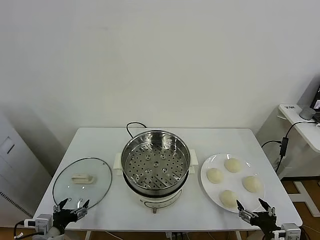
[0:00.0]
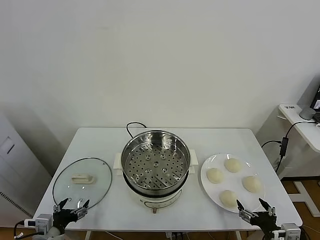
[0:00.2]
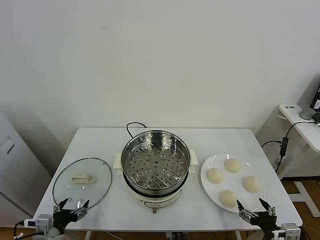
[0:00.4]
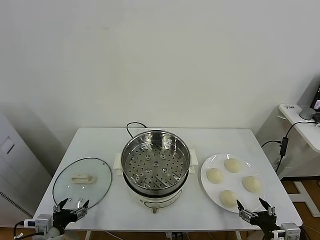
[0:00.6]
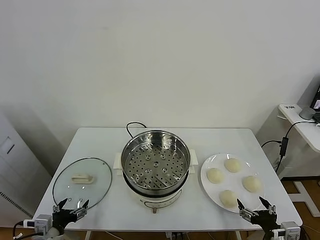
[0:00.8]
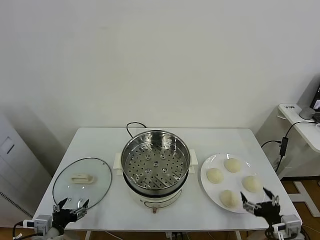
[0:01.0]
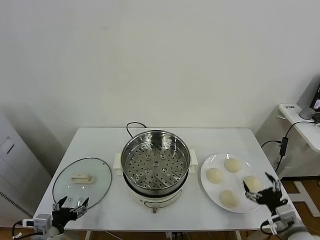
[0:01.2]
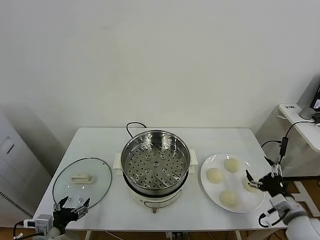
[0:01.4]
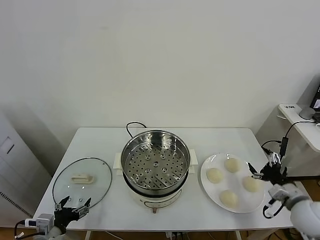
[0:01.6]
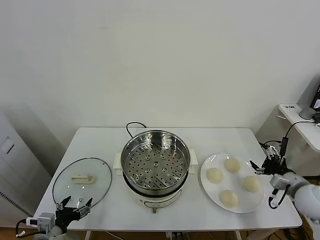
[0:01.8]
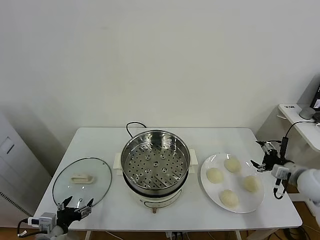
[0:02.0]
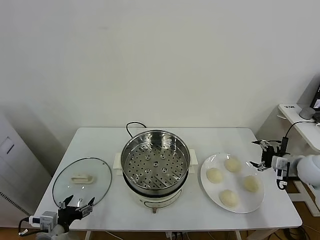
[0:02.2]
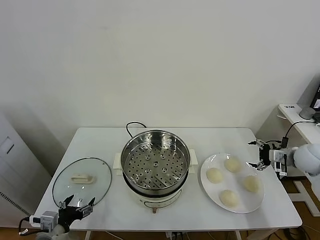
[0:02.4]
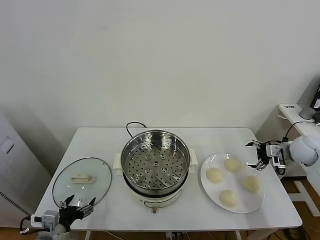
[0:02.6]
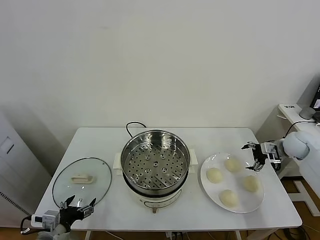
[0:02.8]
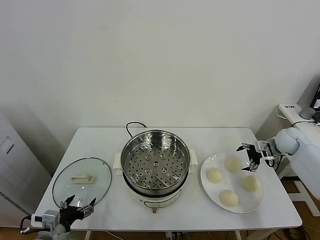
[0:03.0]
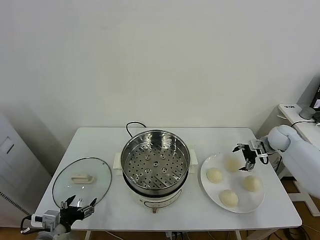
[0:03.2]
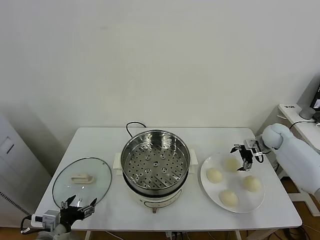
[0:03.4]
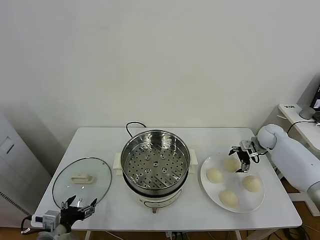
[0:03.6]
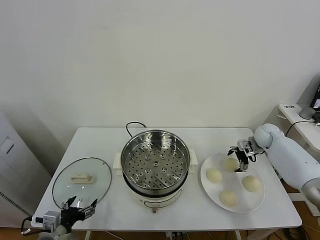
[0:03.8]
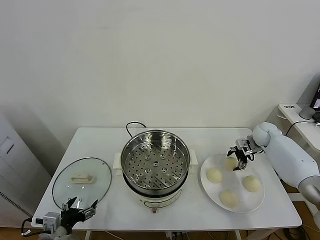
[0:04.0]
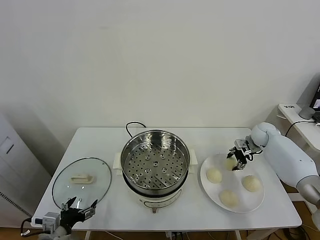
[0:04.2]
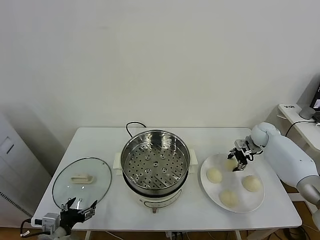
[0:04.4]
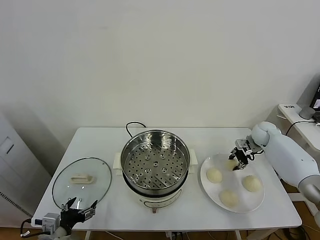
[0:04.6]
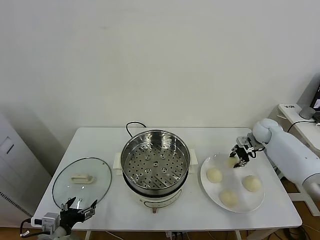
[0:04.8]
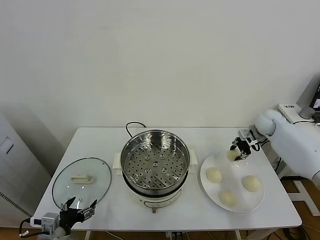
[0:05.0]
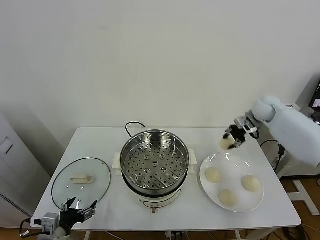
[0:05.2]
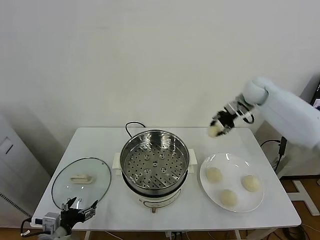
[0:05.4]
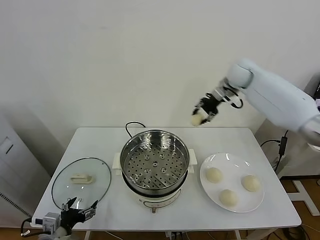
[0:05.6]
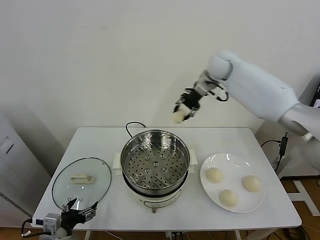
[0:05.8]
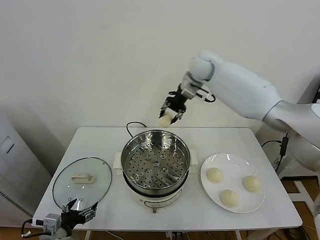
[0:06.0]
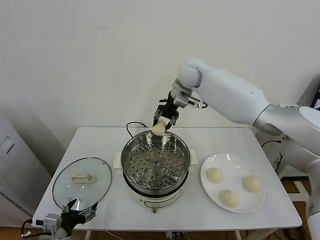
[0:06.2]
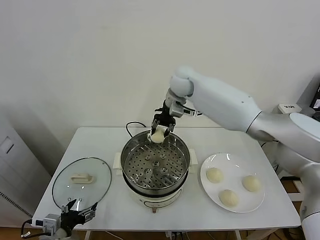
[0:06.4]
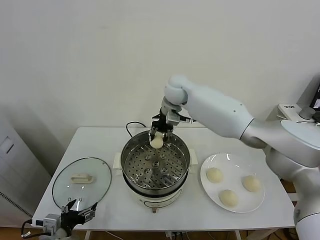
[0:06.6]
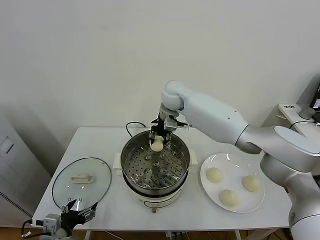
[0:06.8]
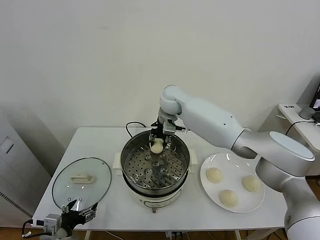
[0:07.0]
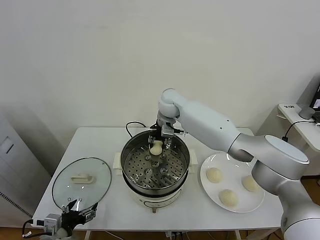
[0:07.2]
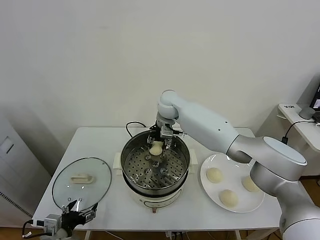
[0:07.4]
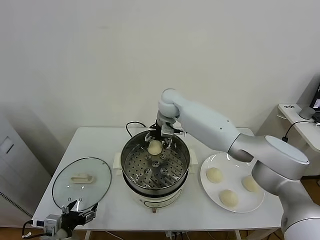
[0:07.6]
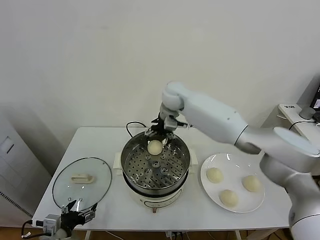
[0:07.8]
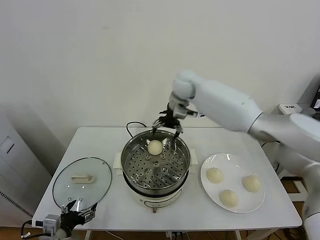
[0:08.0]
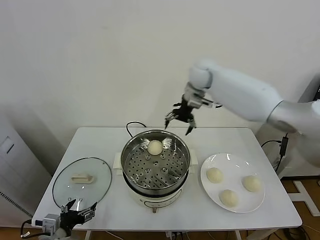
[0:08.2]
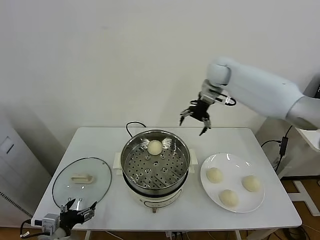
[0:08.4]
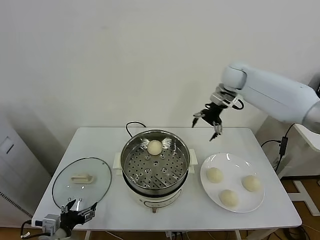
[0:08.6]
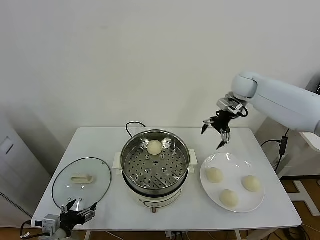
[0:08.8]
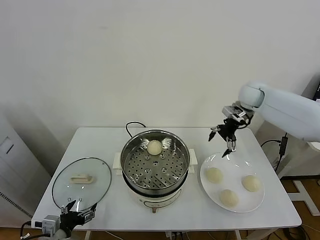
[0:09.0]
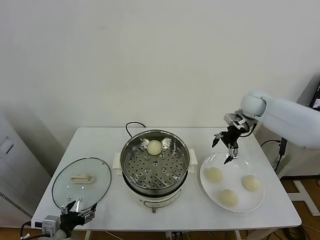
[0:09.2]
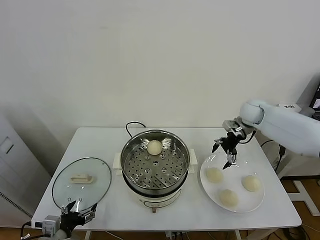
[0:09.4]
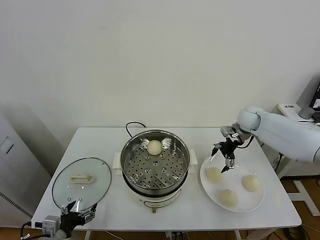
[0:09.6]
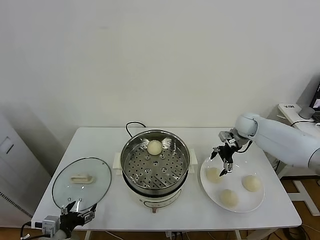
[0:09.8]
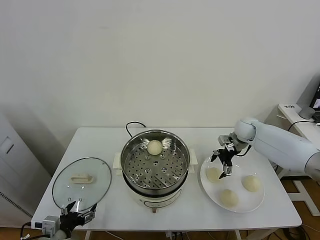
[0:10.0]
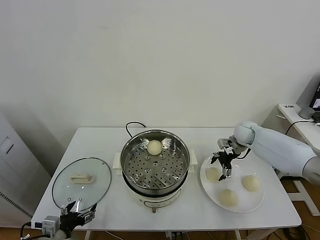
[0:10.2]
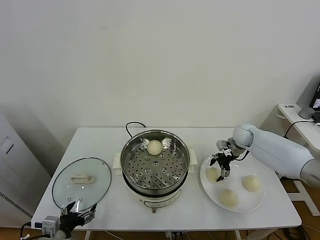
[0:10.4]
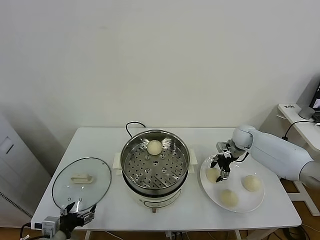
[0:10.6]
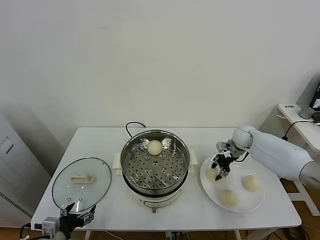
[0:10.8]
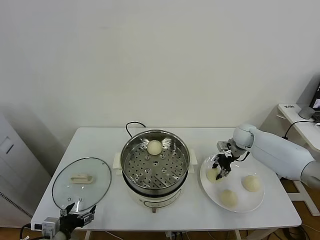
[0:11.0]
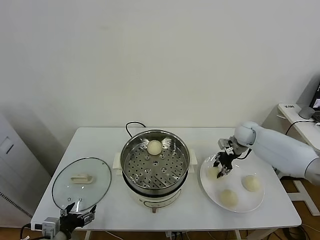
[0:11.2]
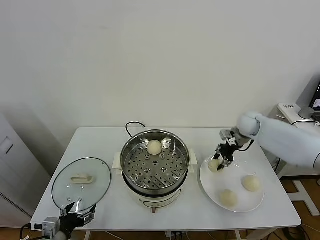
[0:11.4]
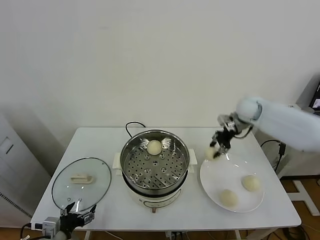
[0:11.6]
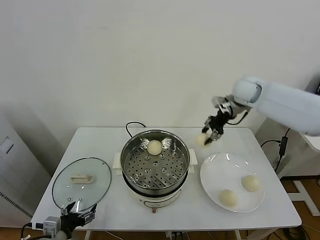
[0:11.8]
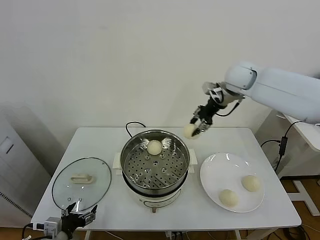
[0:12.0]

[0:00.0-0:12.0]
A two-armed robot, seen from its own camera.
Task of the whole recording: take steamed baozi put them in steamer.
Step, 0:00.0 to 0:04.2: Grasp the baozi in the plate with right gripper.
Step, 0:04.4 to 0:07.8: Place the baozi on the steamer with right gripper.
Step, 0:08.0 to 0:10.6: Grasp the baozi in the plate with right gripper.
0:01.6 to 0:03.0: The right gripper travels forward by some 25 cm.
0:03.0 to 0:04.4: The right gripper travels forward by some 5 cm, and closes its fingers.
0:04.4 to 0:06.0: The right gripper goes about 40 cm to the left and upward.
0:06.0 to 0:07.6: The right gripper moves downward and to the left, approximately 10 cm, and opens its fingers.
0:07.6 to 0:09.0: The right gripper travels to the right by approximately 30 cm.
0:09.0 to 0:10.4: The right gripper shifts about 15 cm downward.
0:10.4 to 0:12.0: The right gripper goes about 30 cm upward and to the left, and closes.

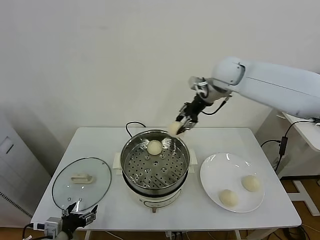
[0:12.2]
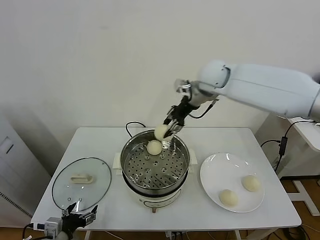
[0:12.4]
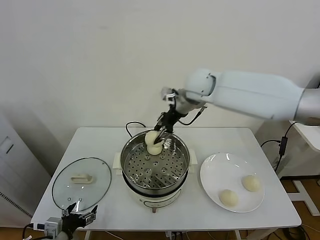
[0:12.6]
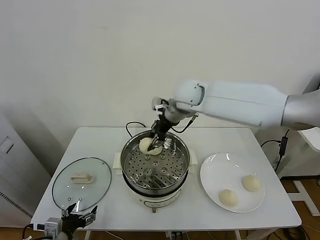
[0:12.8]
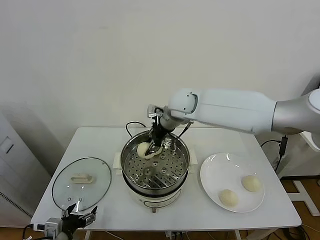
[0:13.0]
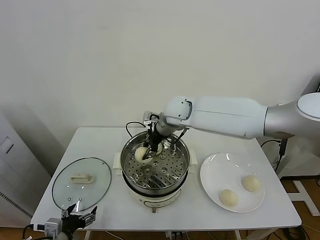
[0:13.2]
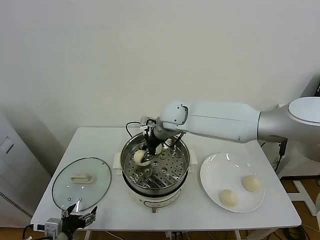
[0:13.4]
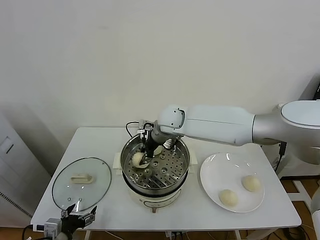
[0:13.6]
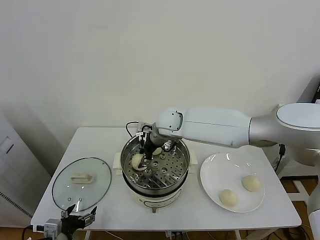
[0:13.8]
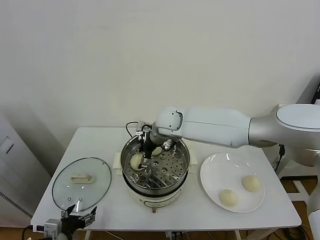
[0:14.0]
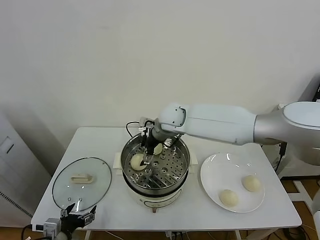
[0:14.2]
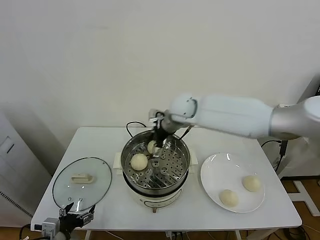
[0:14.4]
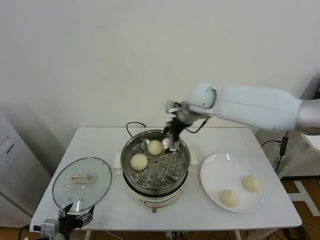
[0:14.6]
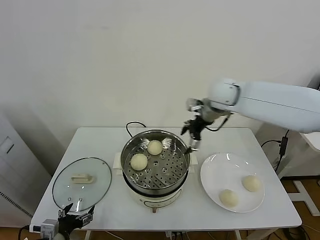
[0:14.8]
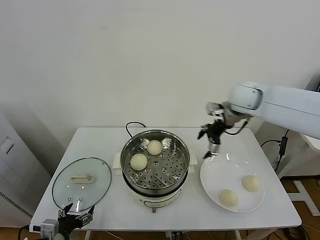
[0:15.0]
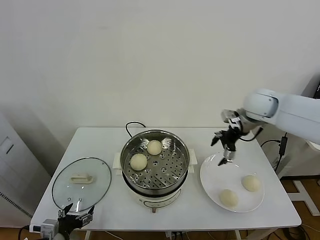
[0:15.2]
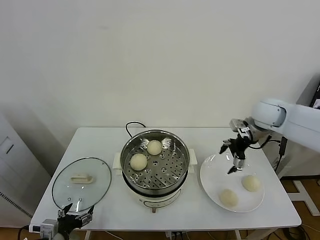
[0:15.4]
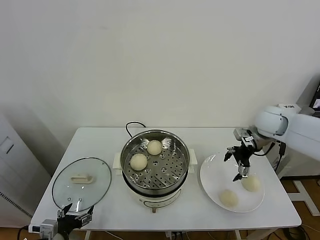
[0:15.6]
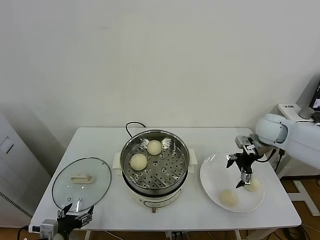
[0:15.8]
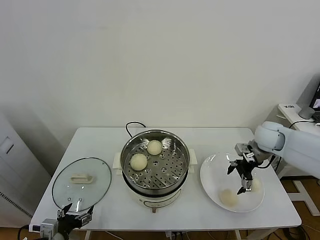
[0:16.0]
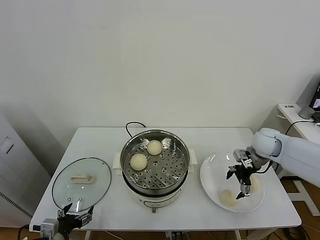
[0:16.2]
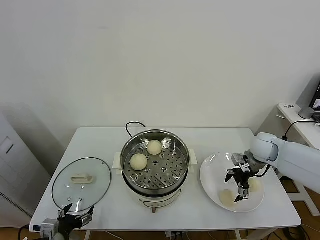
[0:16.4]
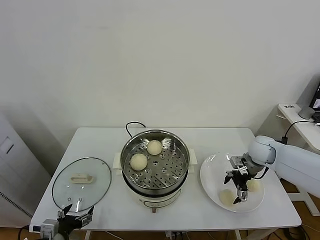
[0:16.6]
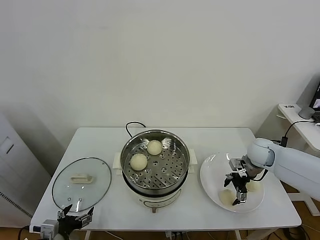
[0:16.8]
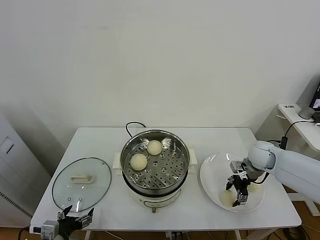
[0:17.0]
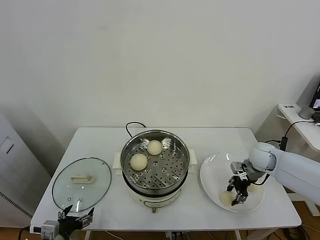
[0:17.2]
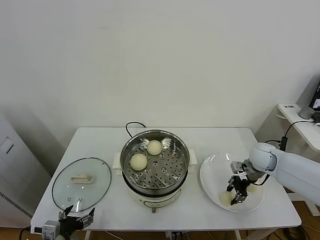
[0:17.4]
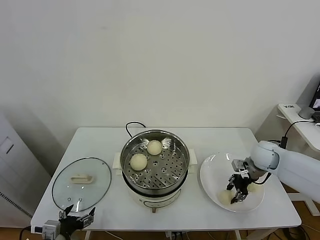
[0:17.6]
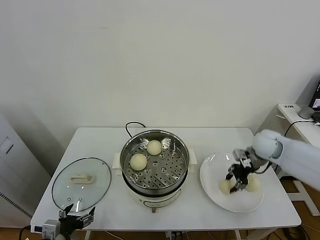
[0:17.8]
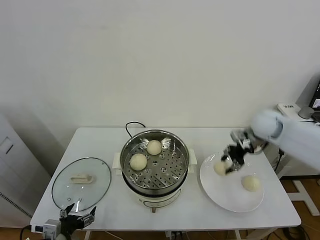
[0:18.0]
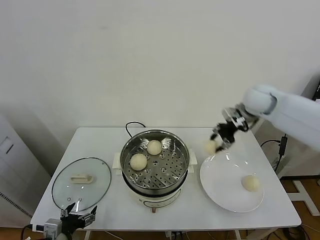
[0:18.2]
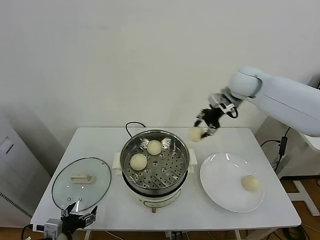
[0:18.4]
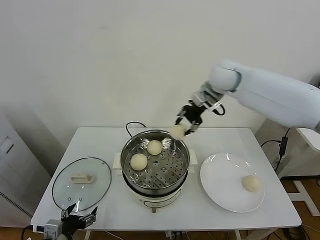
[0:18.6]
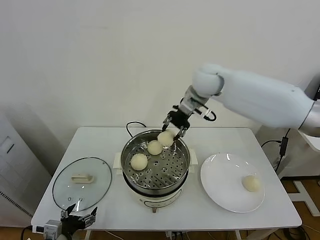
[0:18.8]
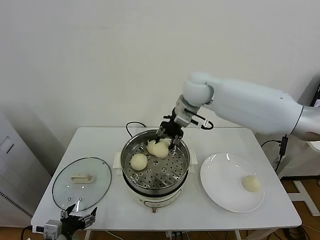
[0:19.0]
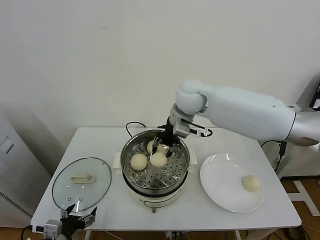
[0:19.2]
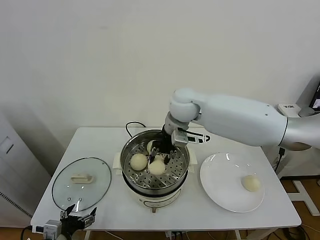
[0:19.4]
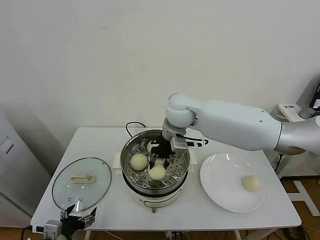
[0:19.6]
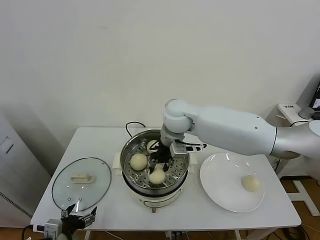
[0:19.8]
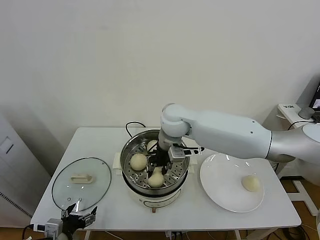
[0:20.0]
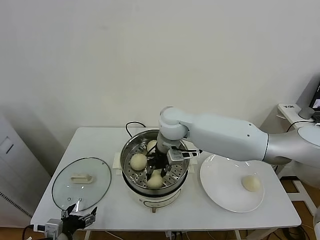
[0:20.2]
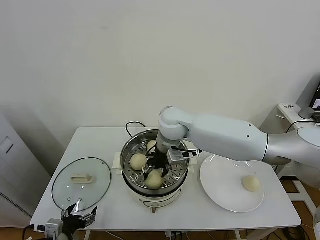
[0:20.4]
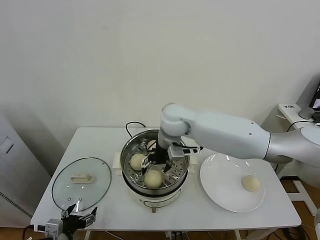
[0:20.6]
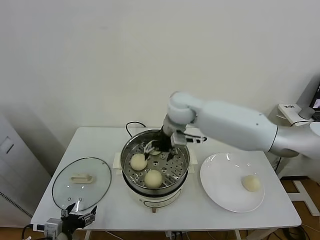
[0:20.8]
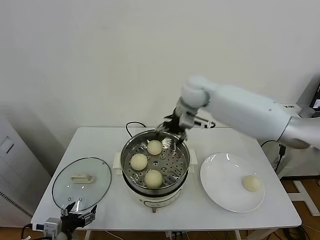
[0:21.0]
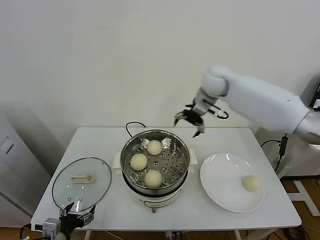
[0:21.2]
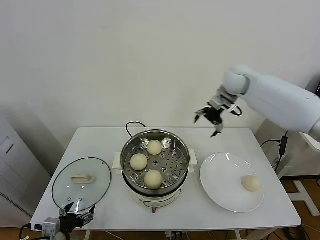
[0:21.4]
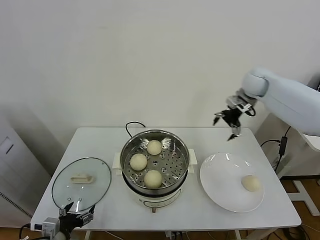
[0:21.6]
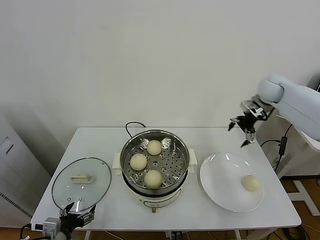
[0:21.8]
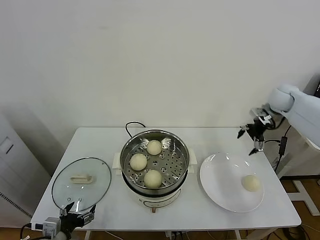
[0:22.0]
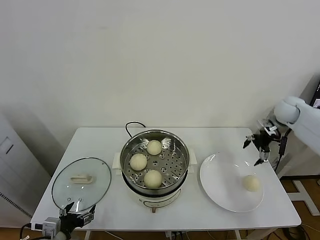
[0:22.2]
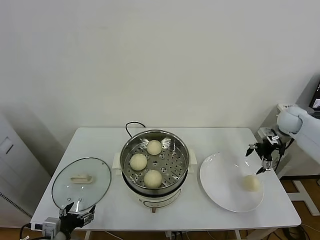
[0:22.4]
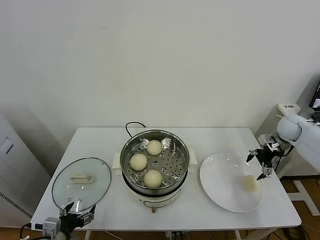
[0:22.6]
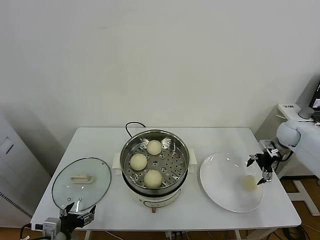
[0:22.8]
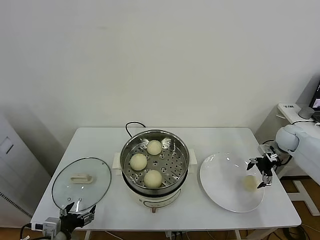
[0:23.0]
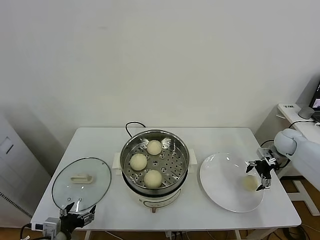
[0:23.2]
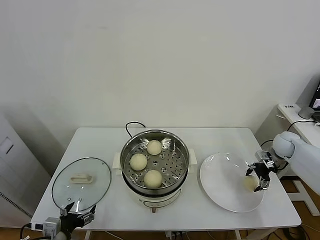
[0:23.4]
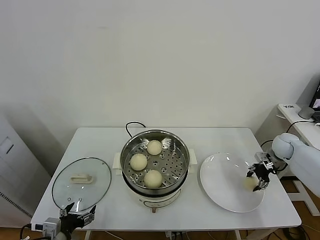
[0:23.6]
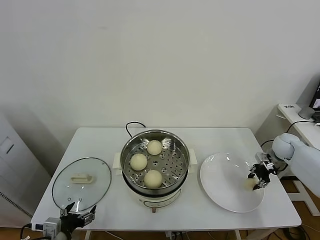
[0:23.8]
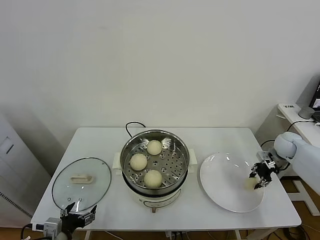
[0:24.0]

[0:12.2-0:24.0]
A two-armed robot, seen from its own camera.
Task of the whole recording: take steamed baozi put them in steamer.
Step, 0:12.2 to 0:14.2: Place the baozi on the steamer with right gripper.
Step, 0:14.4 to 0:17.2: Grasp the baozi in the plate with right gripper.
Step, 0:17.4 to 0:20.6: Place the baozi on the steamer with right gripper.
Step, 0:20.8 to 0:23.6: Grasp the baozi in the plate with right gripper.
0:12.2 to 0:13.6: The right gripper heads to the left and downward, covering about 20 cm.
0:13.6 to 0:15.2: The right gripper travels to the right by roughly 30 cm, and opens its fingers.
0:15.2 to 0:16.6: The right gripper moves downward, approximately 15 cm.
0:16.6 to 0:18.2: The right gripper is displaced upward by roughly 20 cm, and closes.
0:18.2 to 0:19.6: The right gripper goes roughly 25 cm to the left.
0:19.6 to 0:21.0: The right gripper heads to the right and forward, covering about 10 cm, and opens up.
0:21.0 to 0:22.6: The right gripper moves to the right and downward, approximately 40 cm.
0:22.6 to 0:24.0: The right gripper travels downward by some 5 cm, and closes its fingers.
